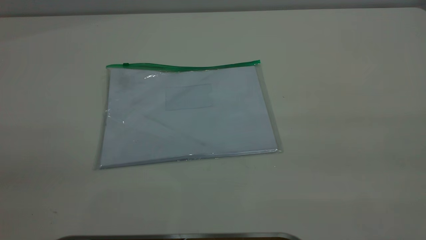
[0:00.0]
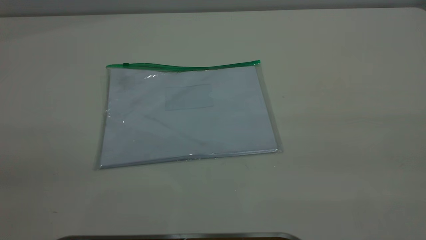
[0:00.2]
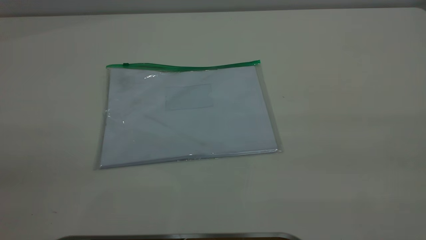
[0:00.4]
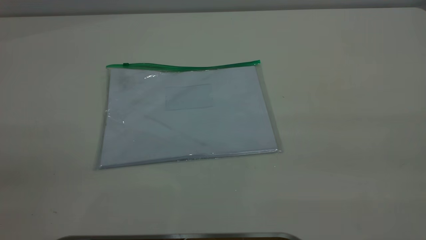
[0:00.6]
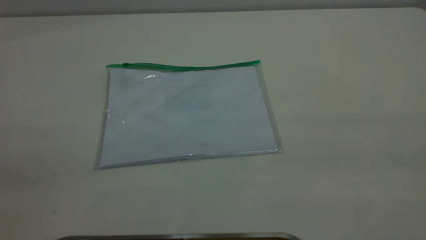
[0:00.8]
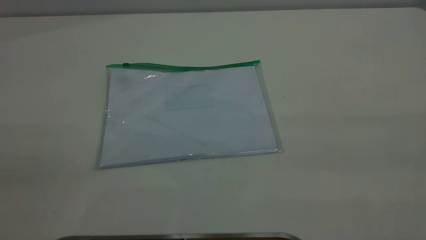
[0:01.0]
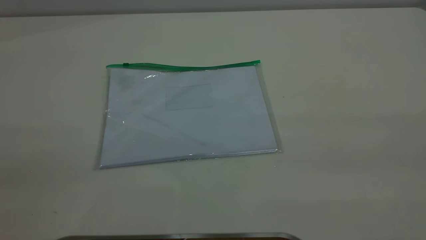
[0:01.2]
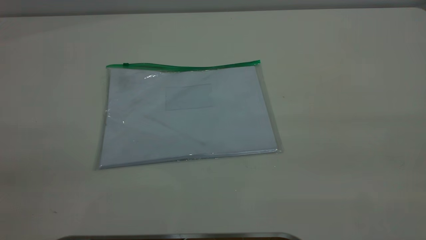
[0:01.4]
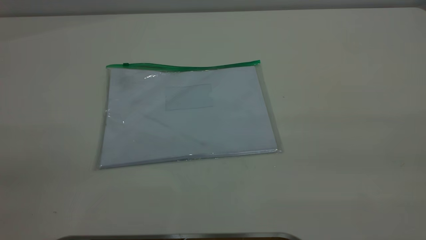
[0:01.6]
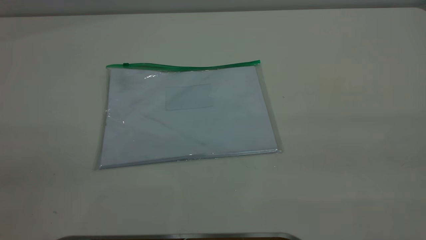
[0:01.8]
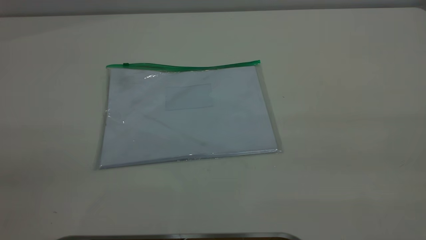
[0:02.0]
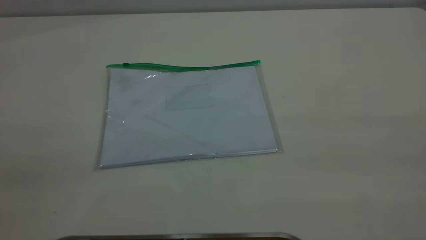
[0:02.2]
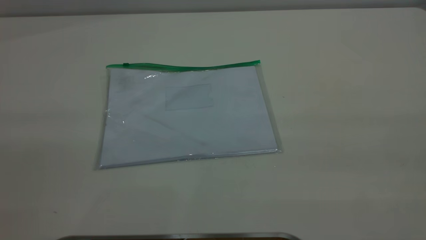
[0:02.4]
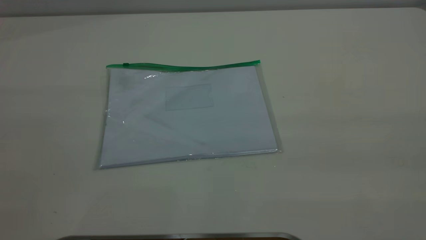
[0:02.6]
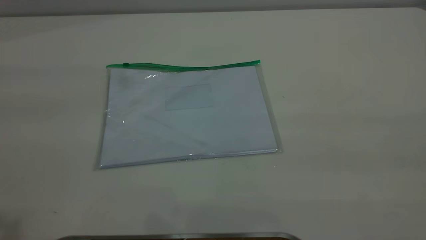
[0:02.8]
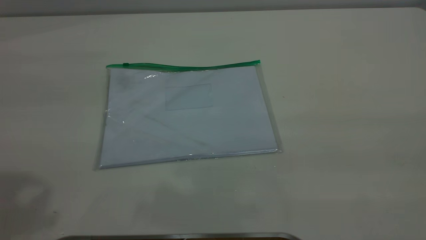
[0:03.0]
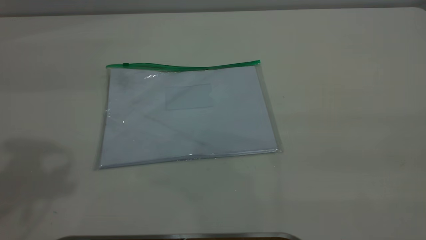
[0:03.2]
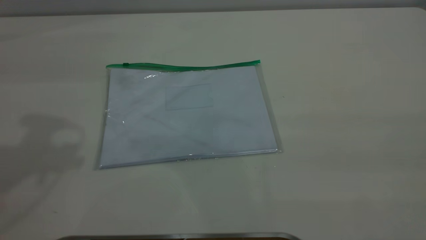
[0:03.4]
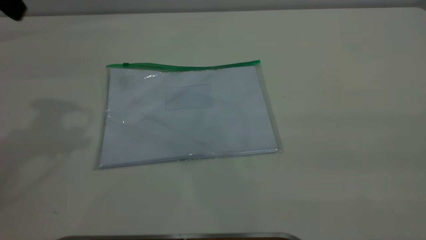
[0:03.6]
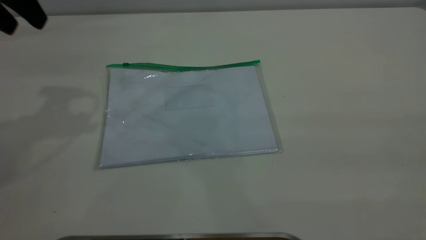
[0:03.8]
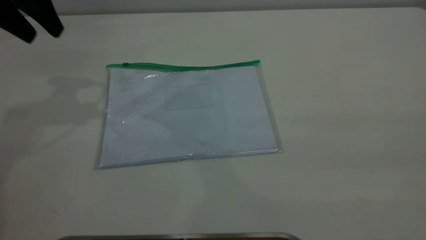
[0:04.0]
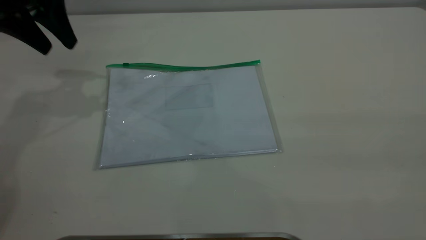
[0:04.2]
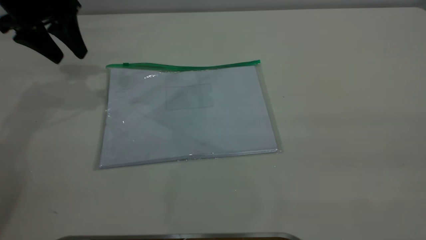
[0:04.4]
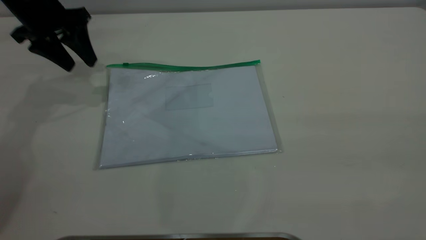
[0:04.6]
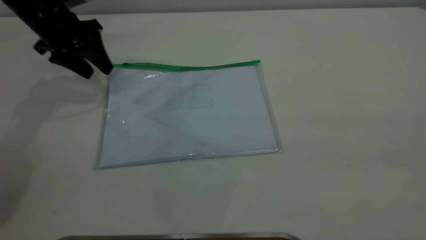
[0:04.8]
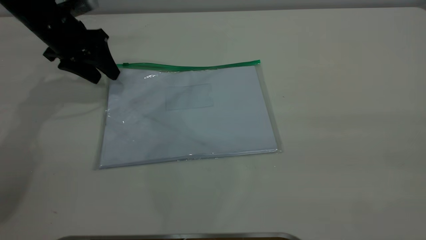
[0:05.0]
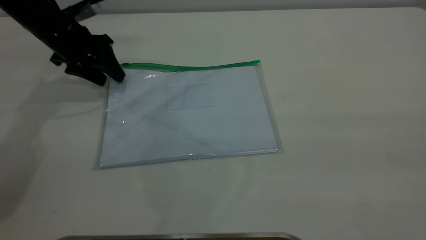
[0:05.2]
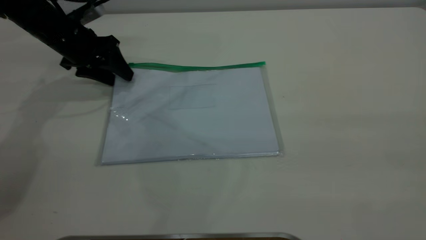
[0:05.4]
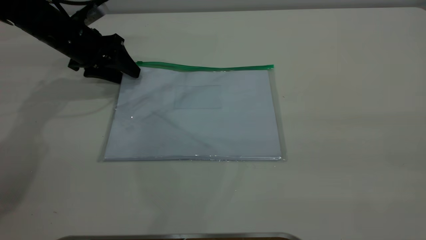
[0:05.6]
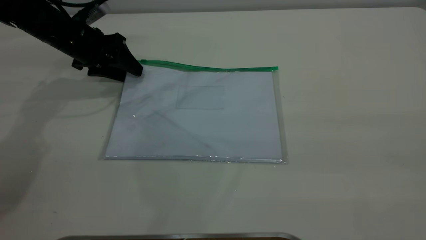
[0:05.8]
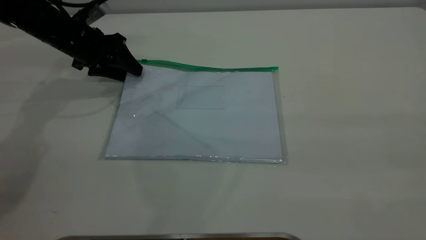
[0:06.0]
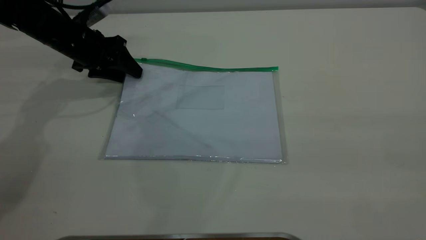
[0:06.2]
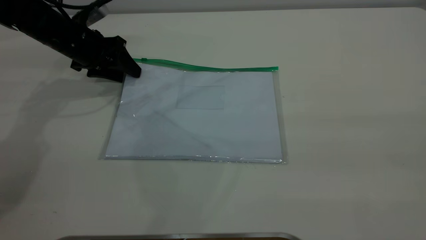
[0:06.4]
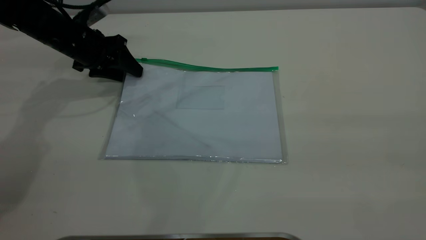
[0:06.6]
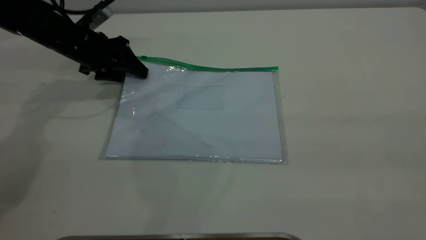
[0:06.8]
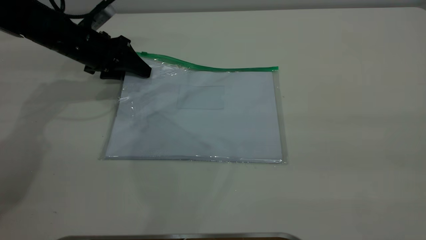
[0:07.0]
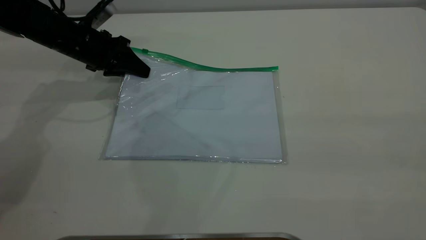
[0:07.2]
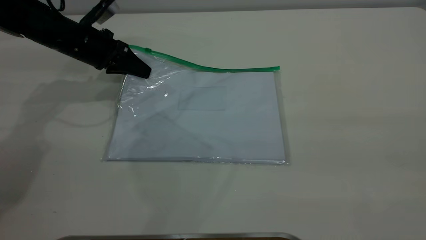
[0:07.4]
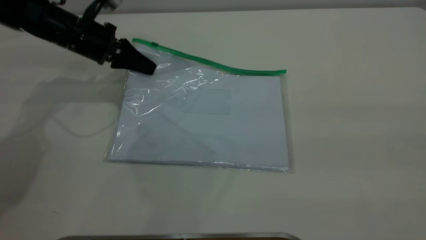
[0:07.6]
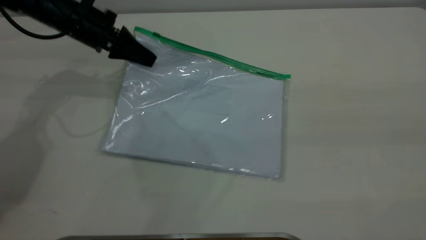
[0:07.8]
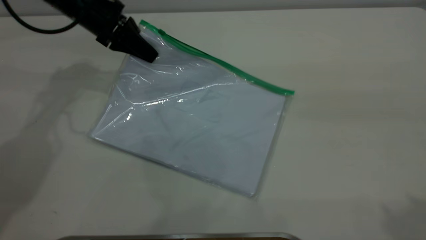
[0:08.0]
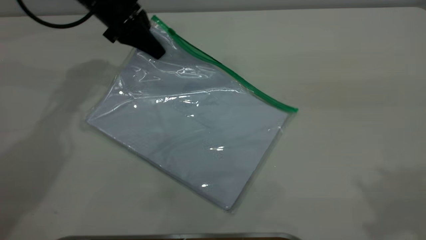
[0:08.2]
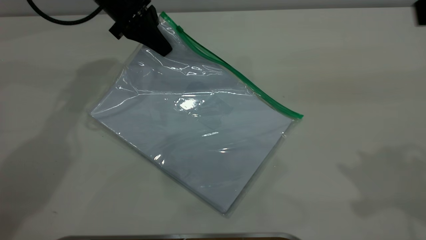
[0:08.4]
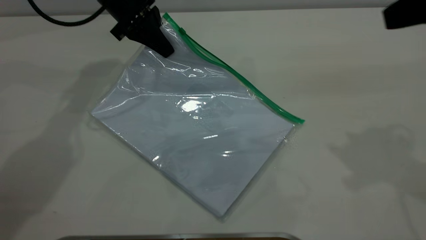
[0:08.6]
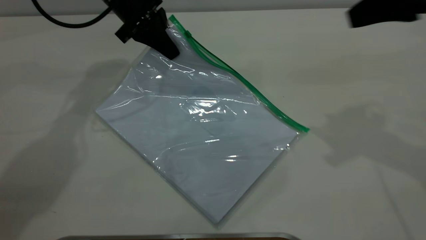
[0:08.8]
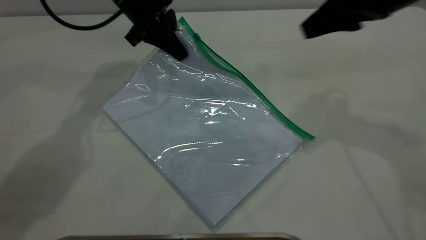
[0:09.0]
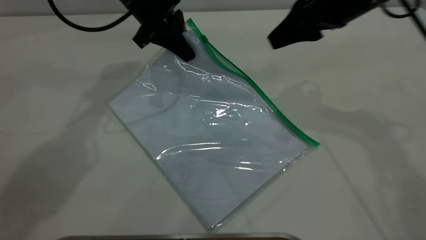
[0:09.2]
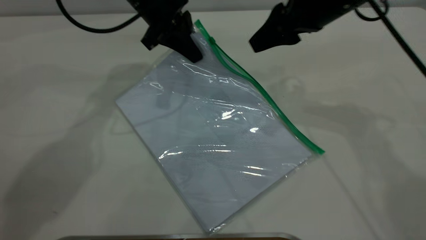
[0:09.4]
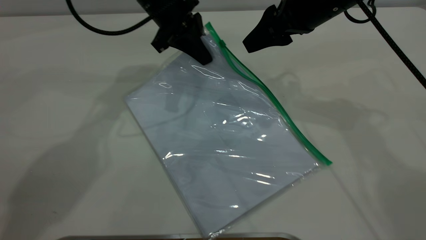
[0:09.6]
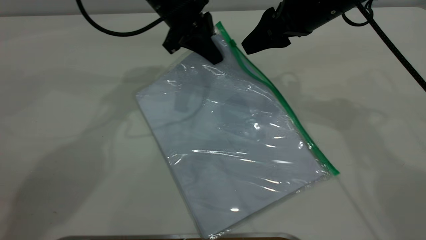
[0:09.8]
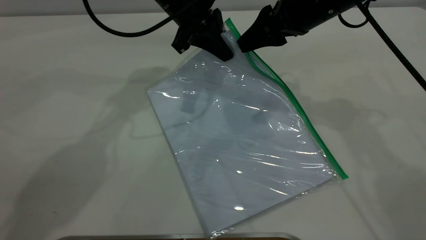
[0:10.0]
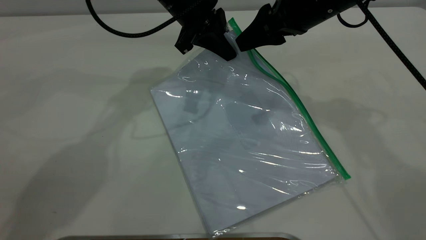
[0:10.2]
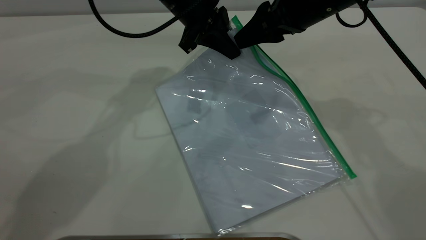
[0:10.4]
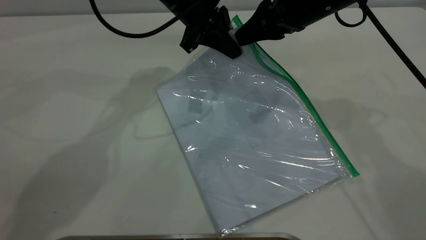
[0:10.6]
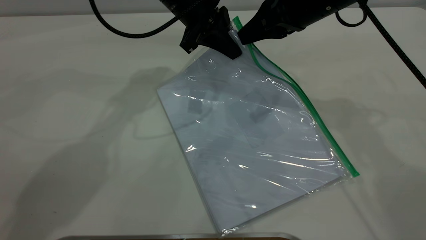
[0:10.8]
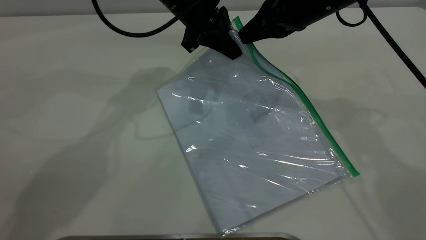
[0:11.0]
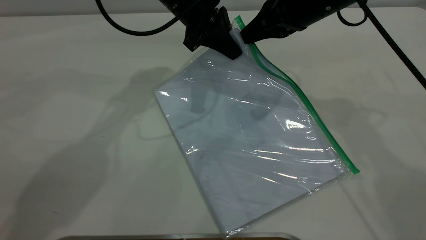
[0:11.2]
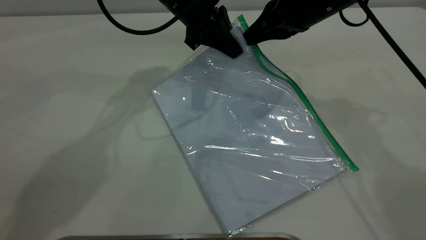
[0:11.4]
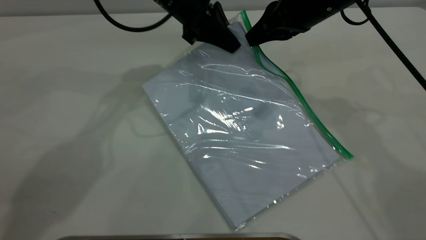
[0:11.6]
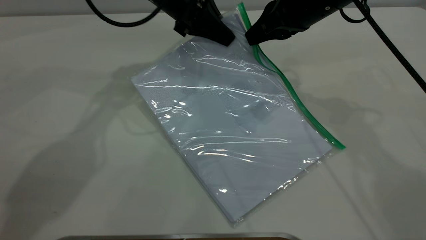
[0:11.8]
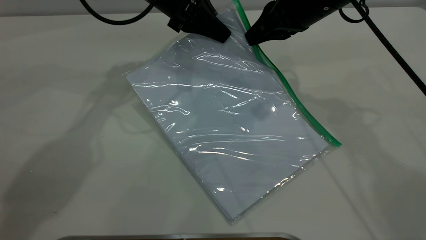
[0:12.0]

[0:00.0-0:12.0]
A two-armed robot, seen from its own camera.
Step, 0:00.0 to 0:07.4: Pick up the transparent plastic bag with the left gripper.
0:00.0 to 0:01.6: Both grippers stay about where they are.
0:03.0 to 0:04.4: The left gripper is displaced forward and downward by approximately 30 cm.
0:04.4 to 0:06.0: The left gripper travels downward by roughly 10 cm.
0:06.0 to 0:07.6: The left gripper closes.
0:07.6 to 0:09.0: The left gripper heads to the right and upward, covering some 10 cm. The right gripper is displaced forward and downward by roughly 35 cm.
0:09.0 to 0:10.4: The right gripper travels to the left by about 5 cm, while the left gripper shifts some 5 cm to the right.
0:10.4 to 0:12.0: The right gripper closes up.

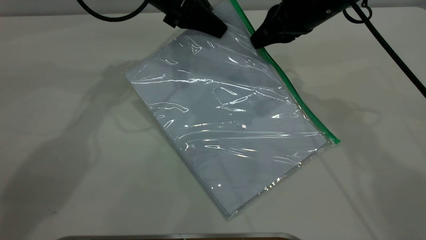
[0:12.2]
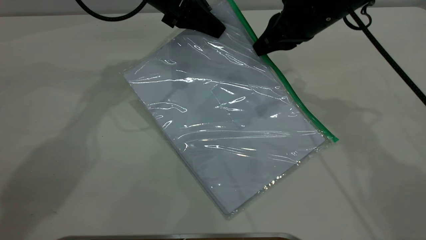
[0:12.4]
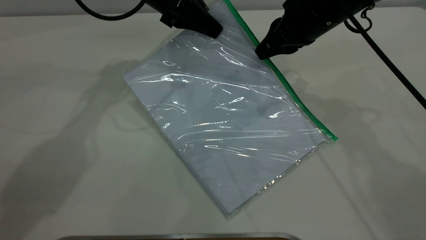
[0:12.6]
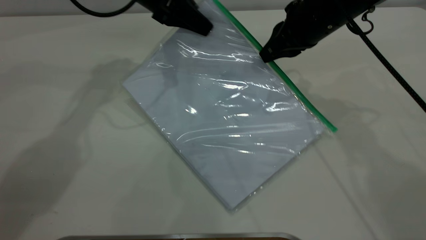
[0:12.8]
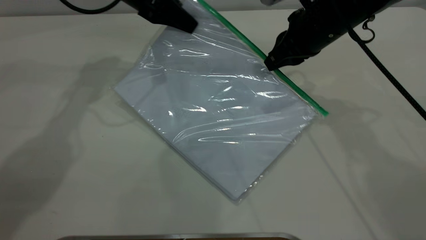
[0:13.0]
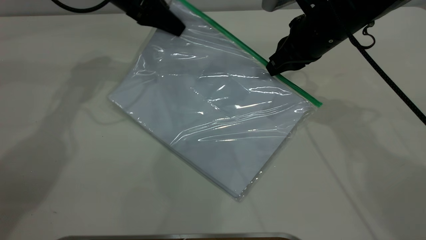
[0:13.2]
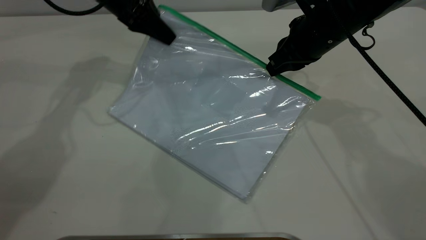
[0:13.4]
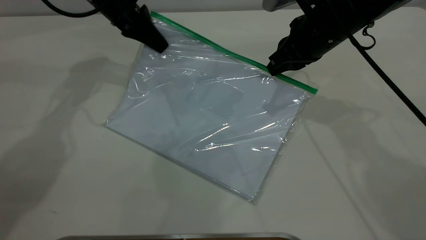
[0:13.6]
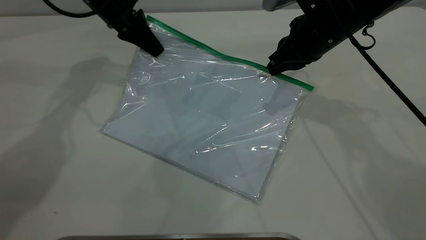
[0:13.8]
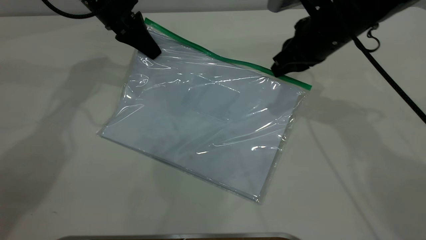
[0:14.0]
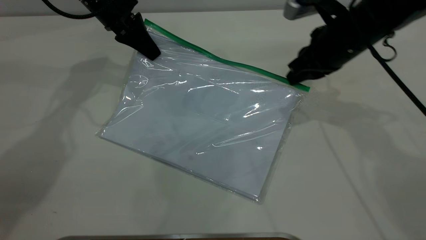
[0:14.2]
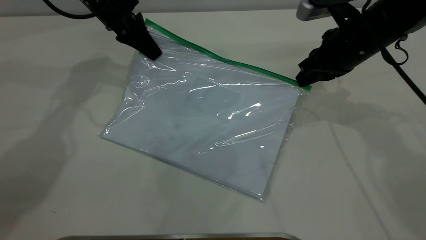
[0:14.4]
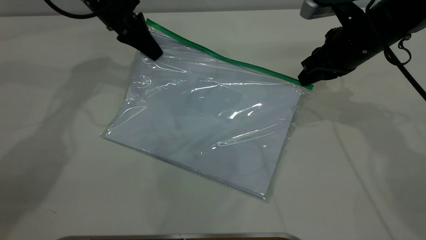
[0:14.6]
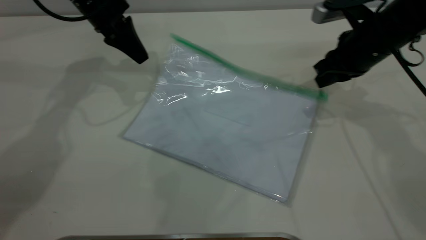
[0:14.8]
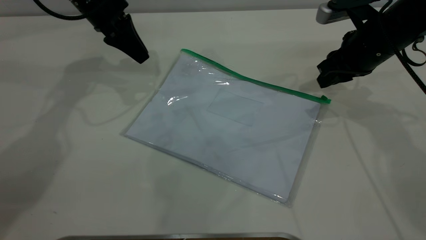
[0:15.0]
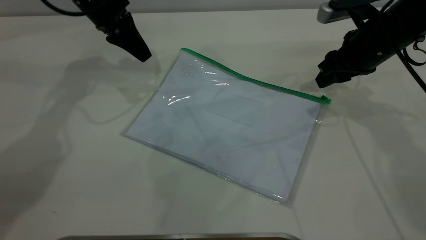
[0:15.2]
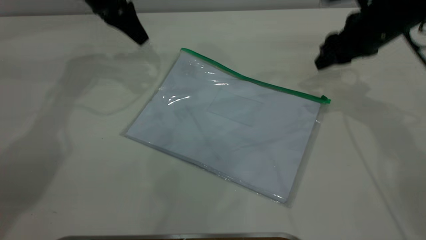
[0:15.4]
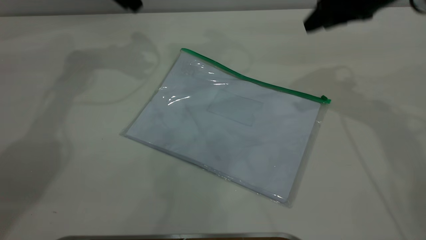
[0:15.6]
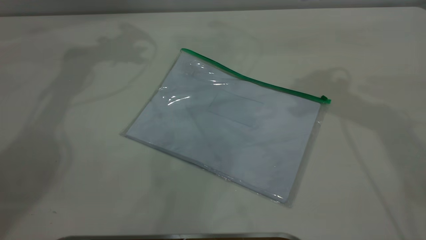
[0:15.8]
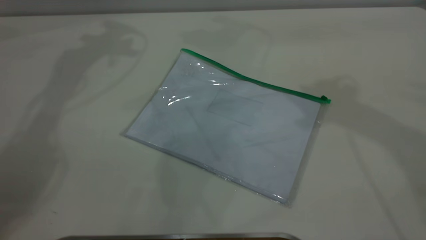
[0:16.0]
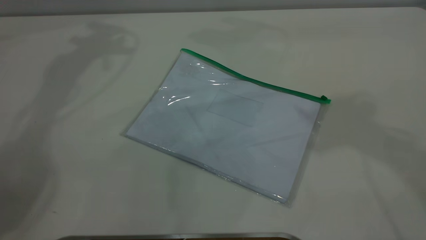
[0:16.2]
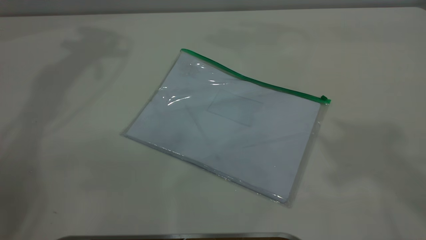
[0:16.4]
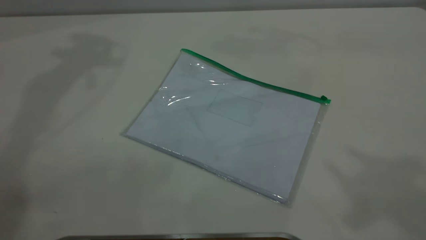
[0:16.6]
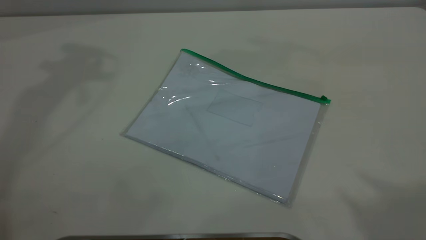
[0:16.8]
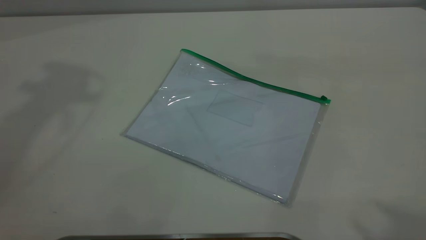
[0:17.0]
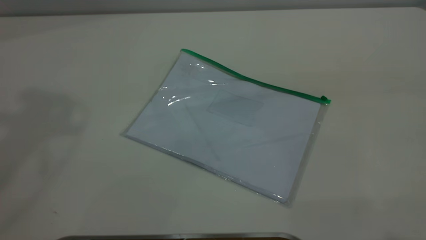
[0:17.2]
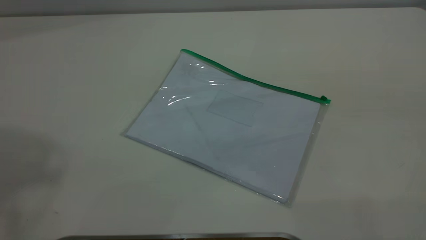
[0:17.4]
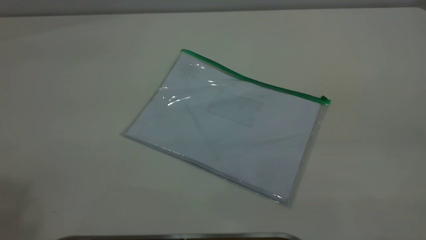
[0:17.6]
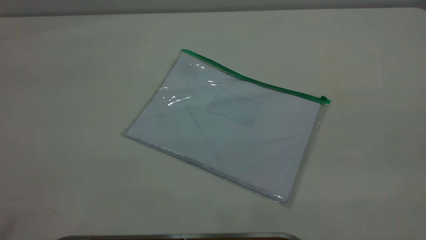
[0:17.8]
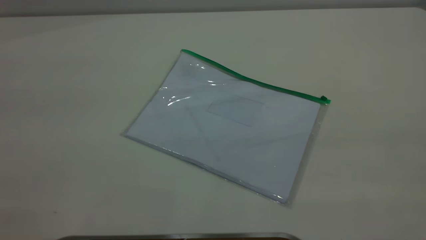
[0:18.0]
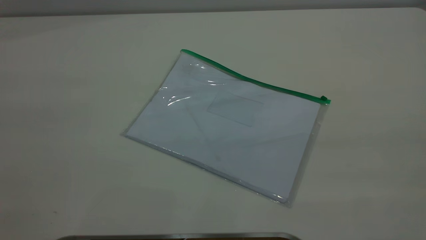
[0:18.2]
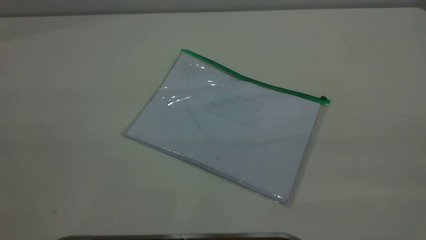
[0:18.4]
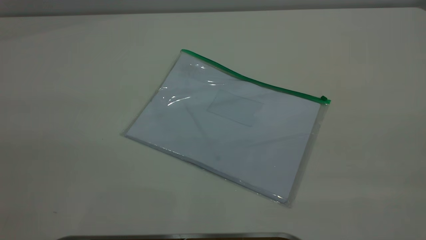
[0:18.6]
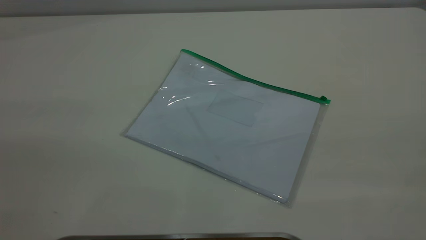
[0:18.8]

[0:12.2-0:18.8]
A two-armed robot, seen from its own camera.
Step, 0:12.2 to 0:14.4: Pulling up the zipper on the transparent plastic bag with the right gripper to close it.
Step, 0:14.6 to 0:14.8: Place the transparent plastic bag.
0:12.2 to 0:13.8: The left gripper moves to the left, about 10 cm.
0:13.8 to 0:15.4: The right gripper goes about 5 cm to the right, and opens up; the left gripper opens up.
0:15.4 to 0:17.2: Both grippers move upward and backward, roughly 50 cm.
